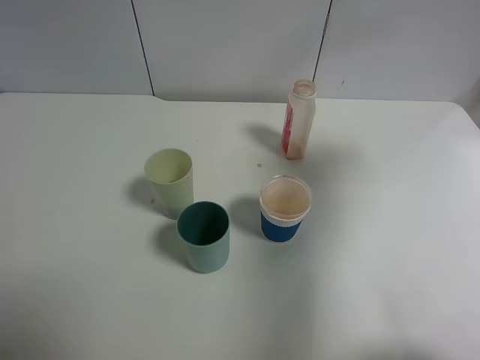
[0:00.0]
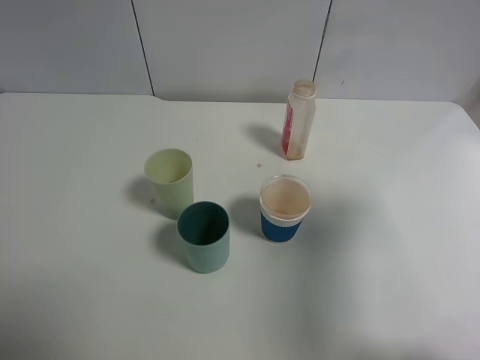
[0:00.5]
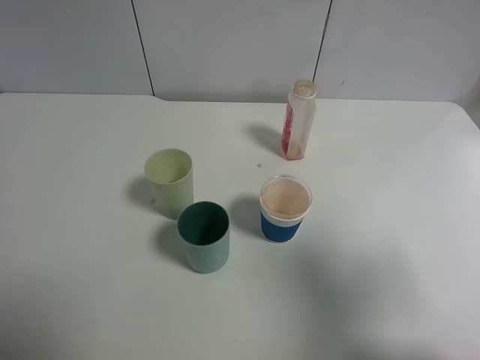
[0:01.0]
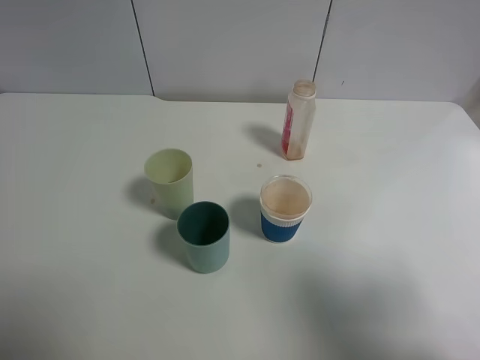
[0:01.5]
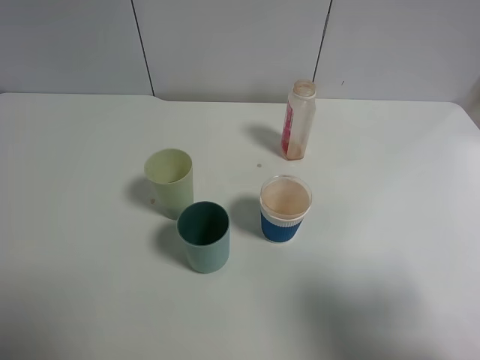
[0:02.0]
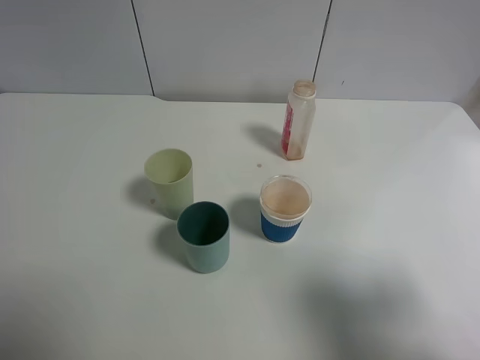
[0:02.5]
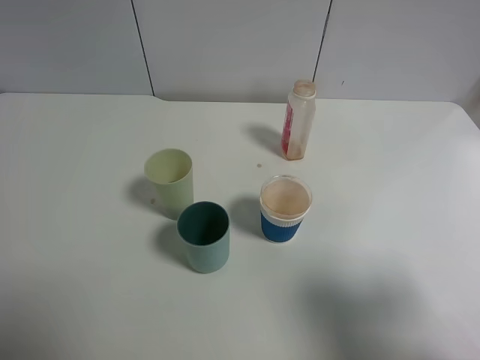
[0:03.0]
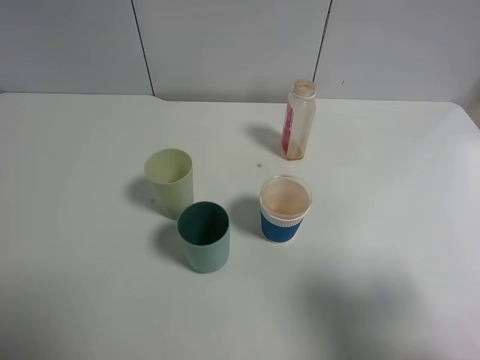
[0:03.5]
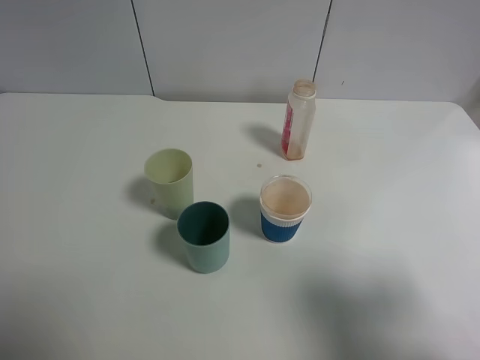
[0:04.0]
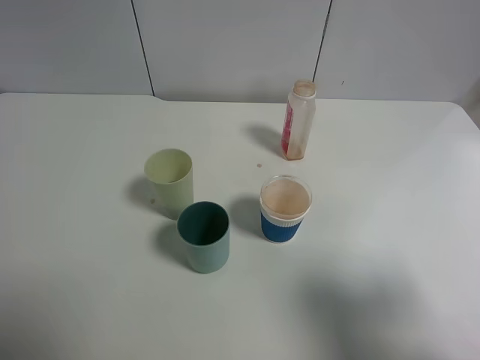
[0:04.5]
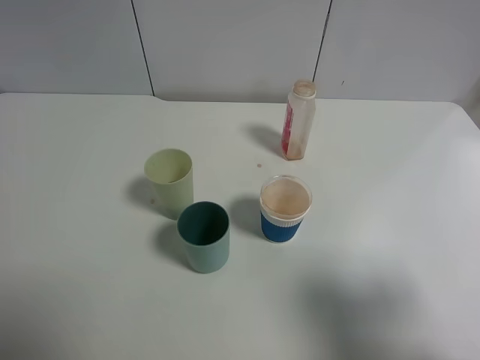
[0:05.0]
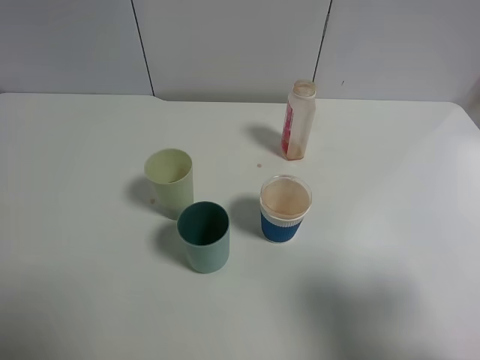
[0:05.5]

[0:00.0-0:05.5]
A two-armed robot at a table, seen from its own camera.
Task of the whole recording: use a gripper to hold the bottle of the drink and pour it into a random cup.
0:00.0 to 0:02.0: The right gripper travels backward by about 20 cm.
0:03.5 to 0:05.5: Both grippers stay put.

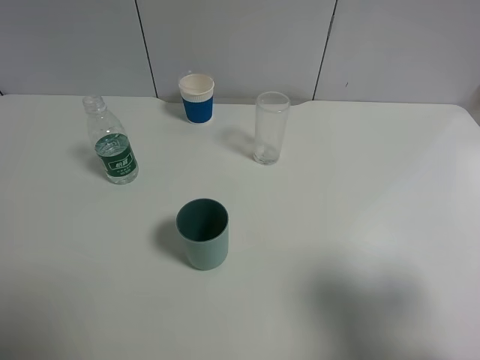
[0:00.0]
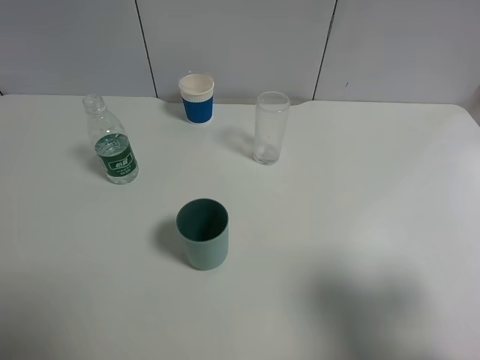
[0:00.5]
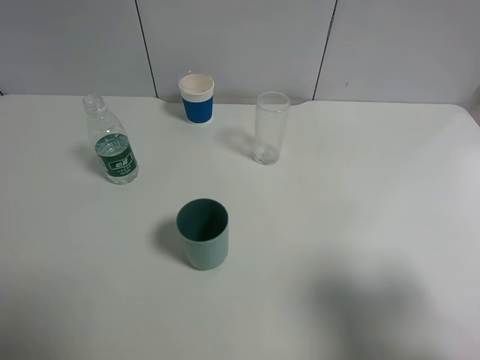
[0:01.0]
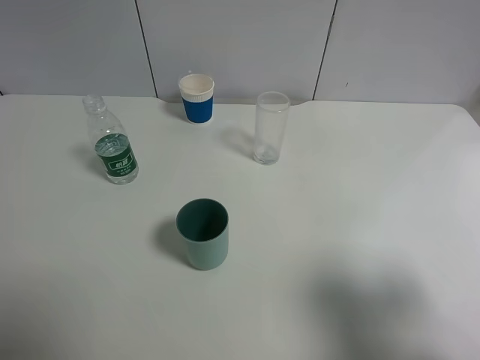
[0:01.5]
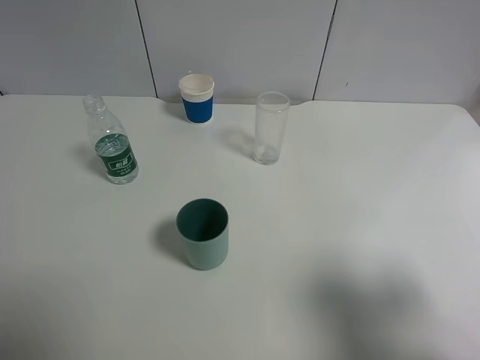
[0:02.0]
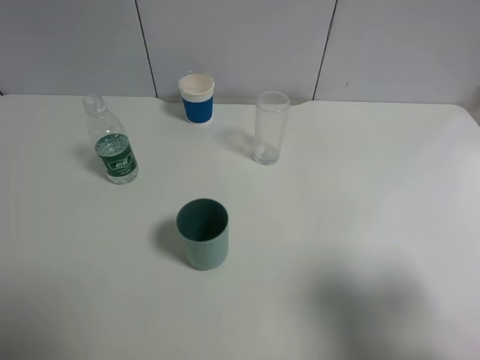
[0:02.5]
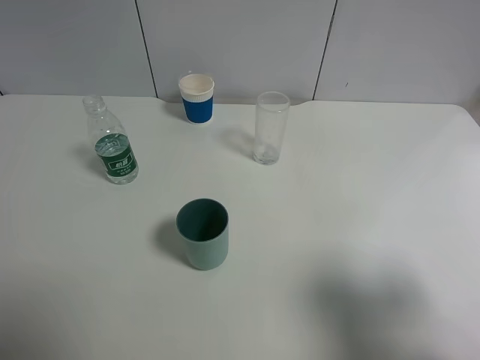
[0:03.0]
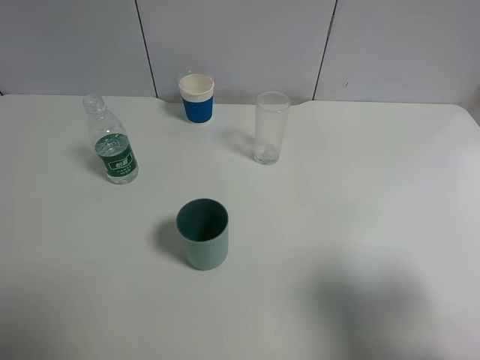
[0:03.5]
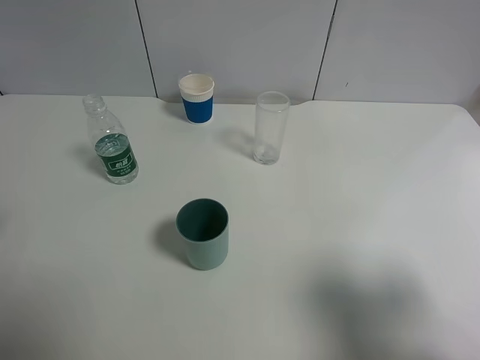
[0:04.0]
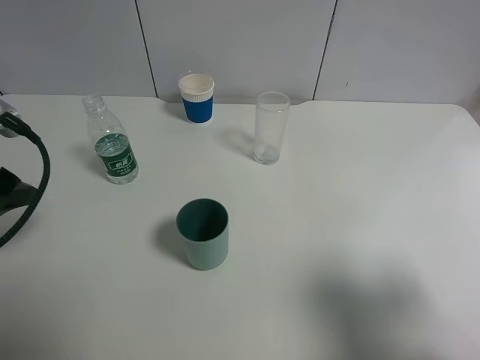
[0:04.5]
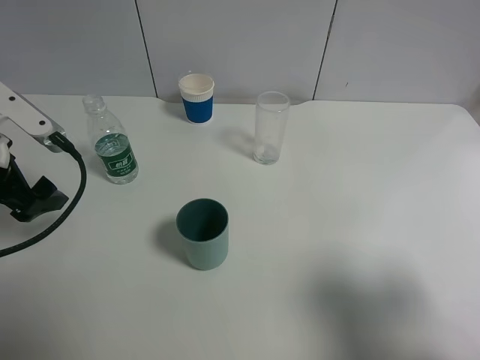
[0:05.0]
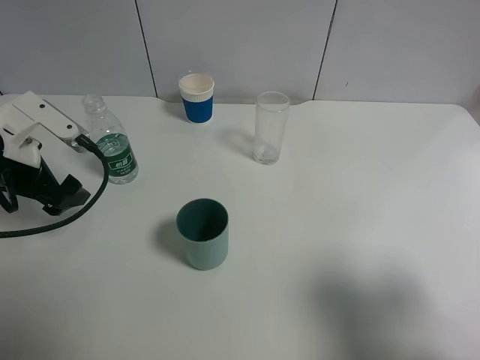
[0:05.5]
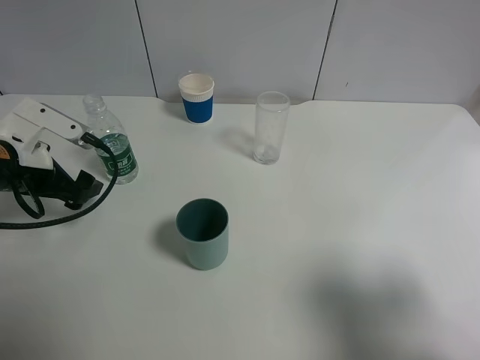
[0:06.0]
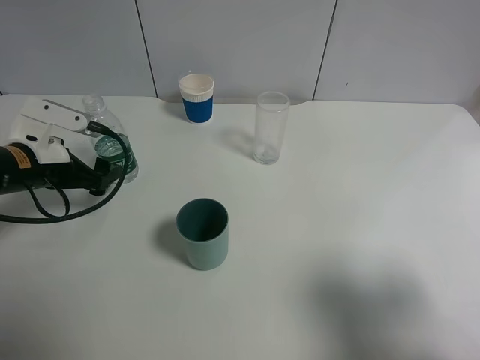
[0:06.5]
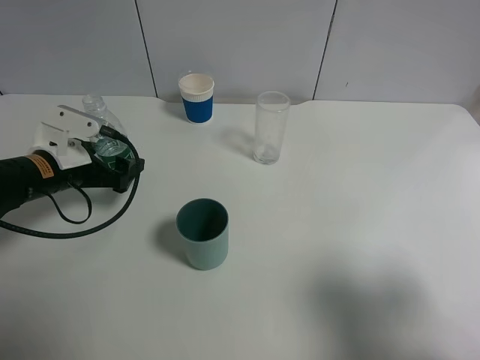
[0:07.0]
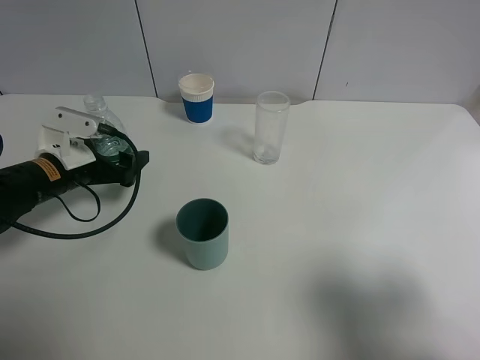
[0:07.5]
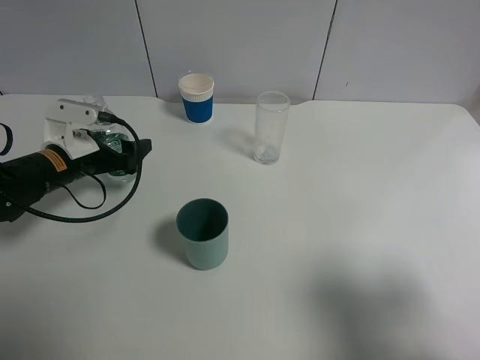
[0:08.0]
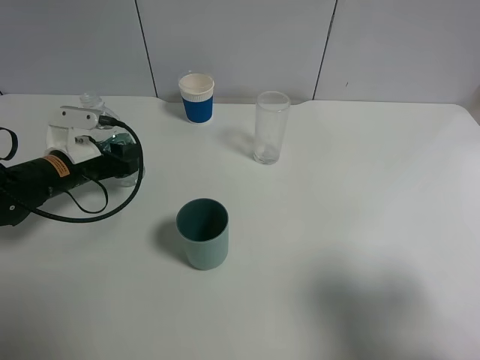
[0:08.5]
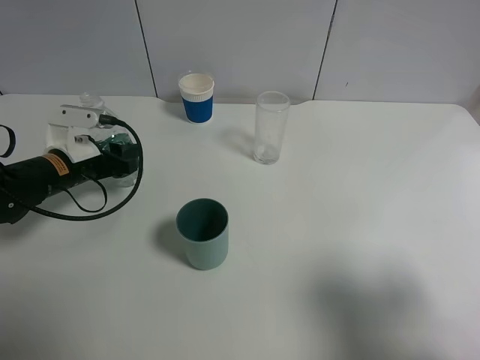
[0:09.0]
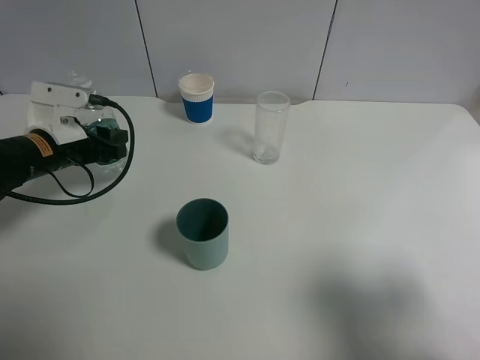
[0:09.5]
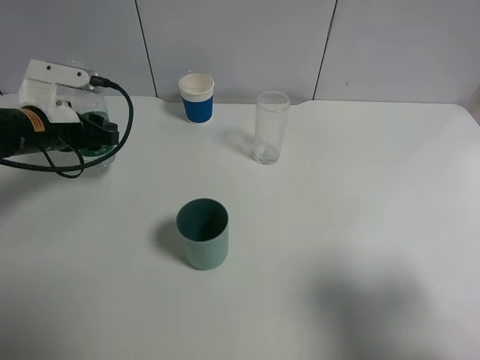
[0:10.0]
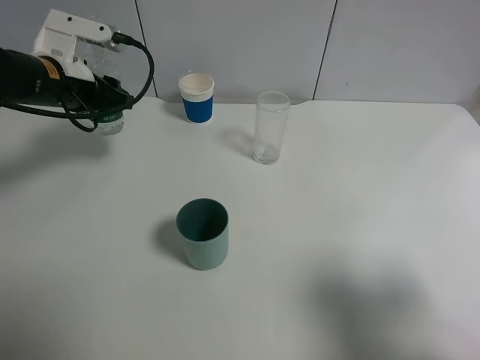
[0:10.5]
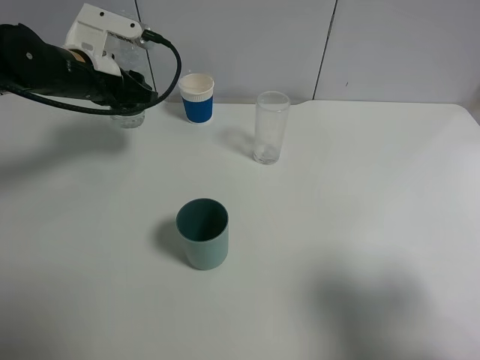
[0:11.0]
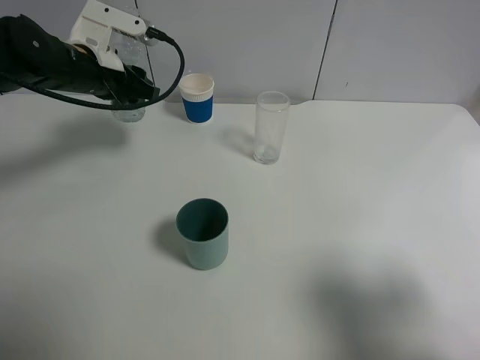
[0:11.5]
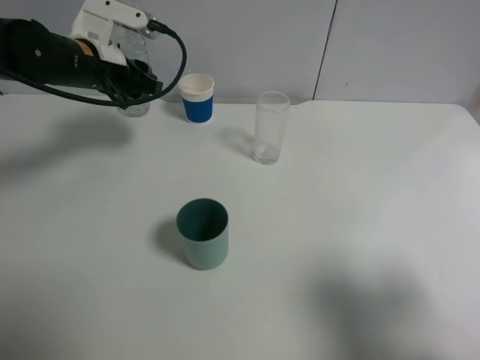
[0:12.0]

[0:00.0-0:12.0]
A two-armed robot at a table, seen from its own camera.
Task of the whole recording: use a gripper to hold the bottle of the drink and pour it into a random cup.
Step, 0:00.0 to 0:08.0: Grasp the mineral water bottle with the left gripper.
0:00.0 to 0:02.0: Neither gripper changes place.
0:04.0 to 0:06.0: The left gripper goes roughly 15 cm downward and forward.
0:06.0 to 0:08.0: The left gripper goes about 10 cm downward and forward.
0:08.0 to 0:10.0: The left gripper heads upward, covering approximately 5 cm, and closes up.
0:10.0 to 0:12.0: The left gripper travels to the right, forward and upward by some 10 cm.

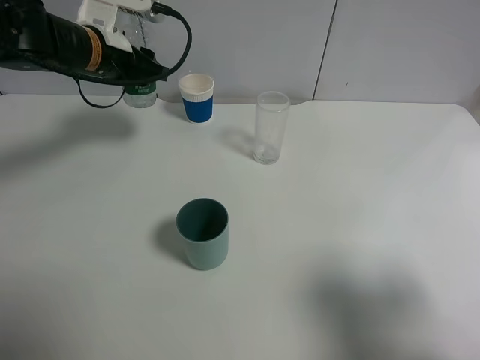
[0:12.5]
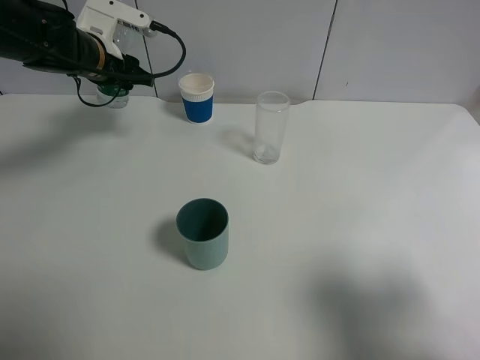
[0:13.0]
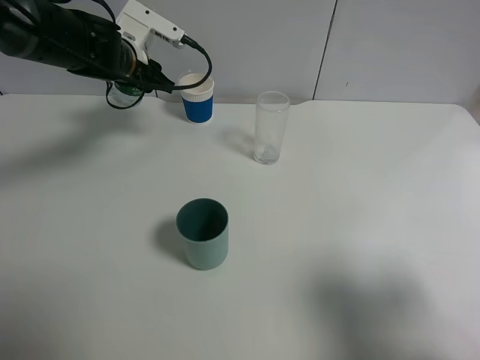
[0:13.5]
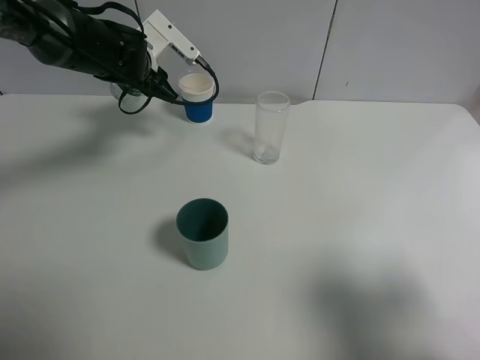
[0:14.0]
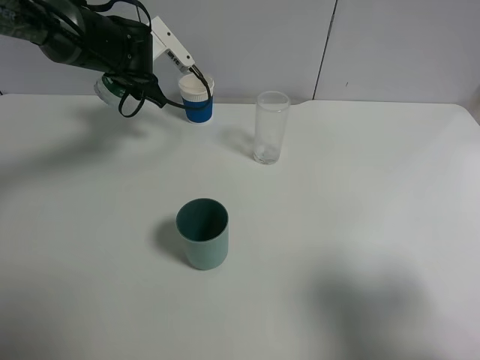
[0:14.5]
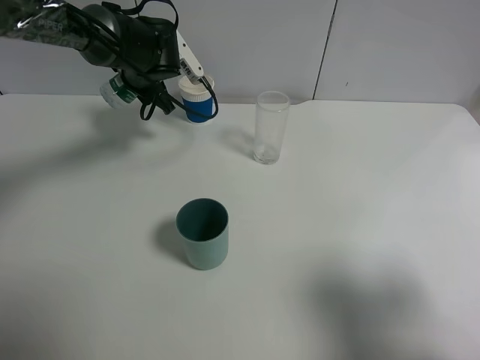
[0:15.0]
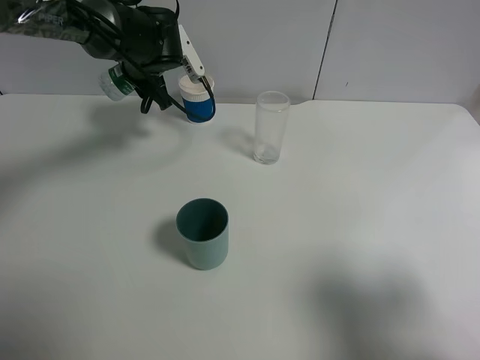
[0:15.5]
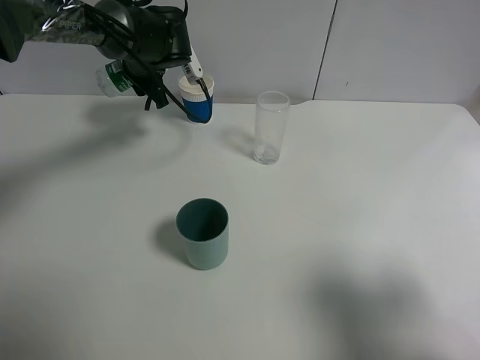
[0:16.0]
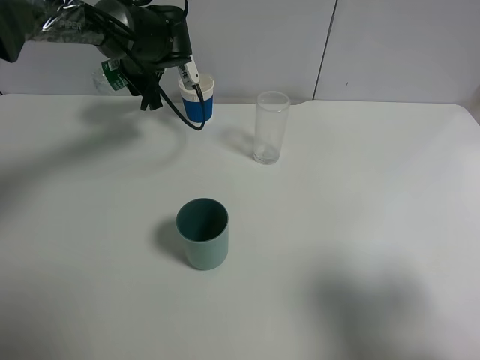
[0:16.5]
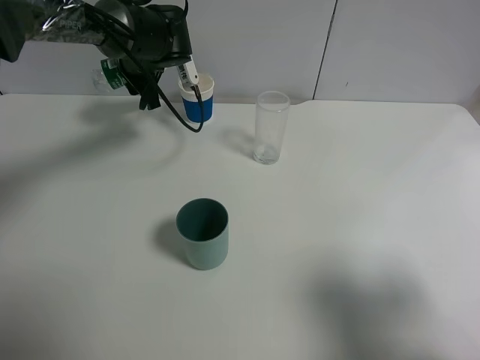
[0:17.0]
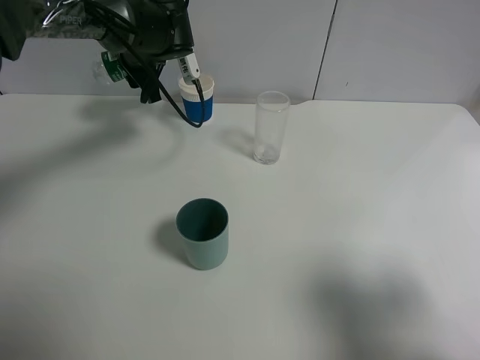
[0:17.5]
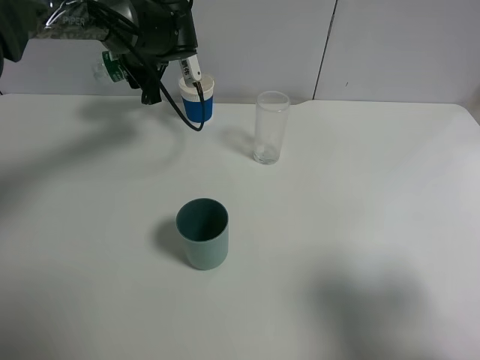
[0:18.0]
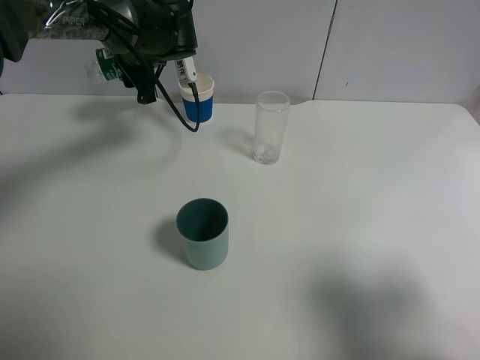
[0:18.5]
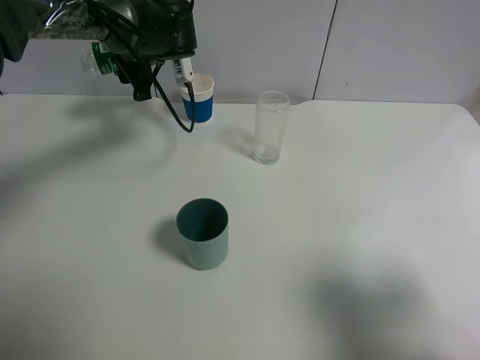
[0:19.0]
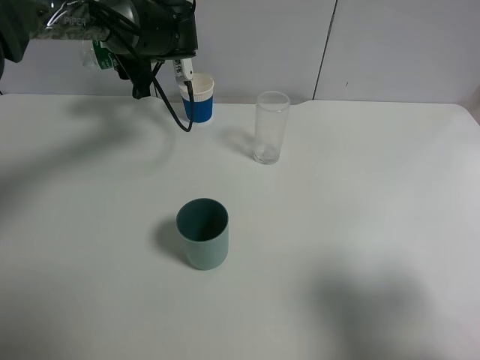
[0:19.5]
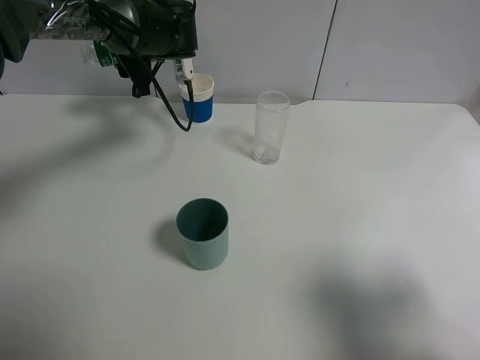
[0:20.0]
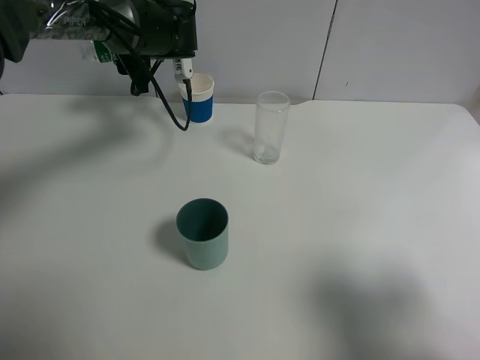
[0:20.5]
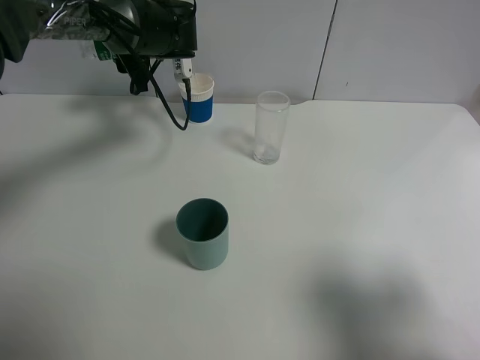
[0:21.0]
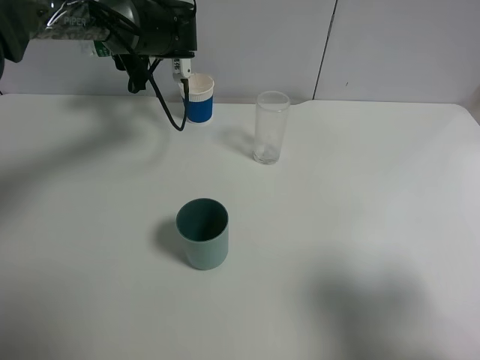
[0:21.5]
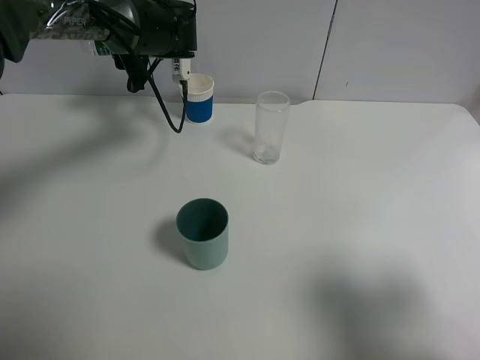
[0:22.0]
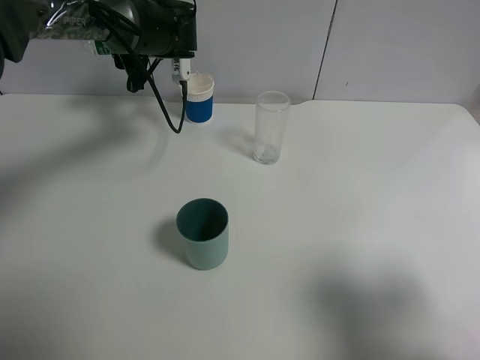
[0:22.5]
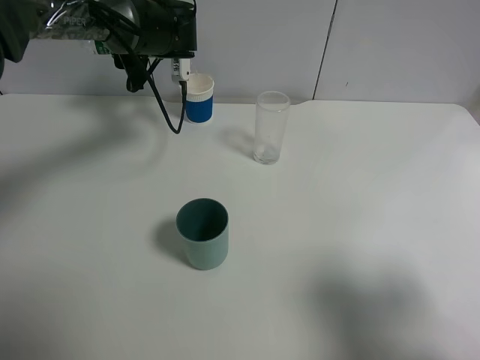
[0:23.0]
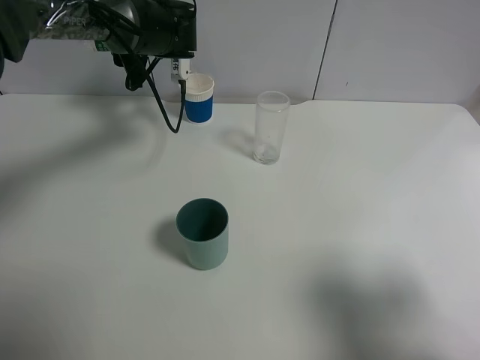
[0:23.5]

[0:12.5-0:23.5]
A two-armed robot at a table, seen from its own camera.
Task of the whole recording: use a gripper to hold the bottle of the drink and pour it into a random cup.
0:12.5 to 0:14.5: The left gripper changes place by about 5 cm.
0:16.0 to 0:20.0: The grippers stay close to where they were, moving slightly.
0:20.0 to 0:21.5: The grippers make only small movements.
0:21.5 to 0:23.5: The two grippers keep their place.
